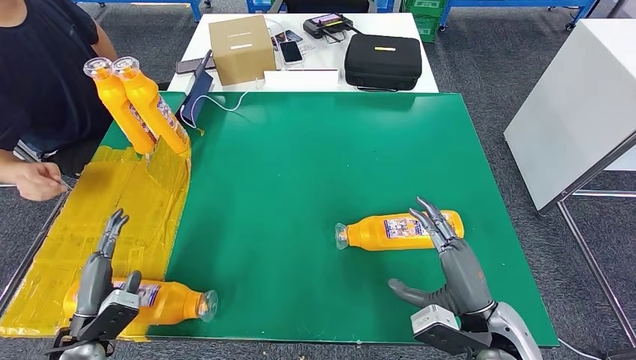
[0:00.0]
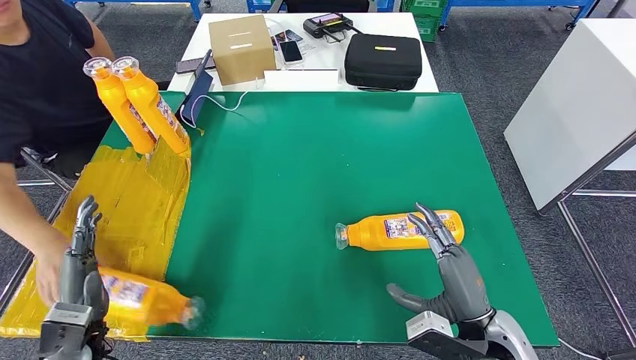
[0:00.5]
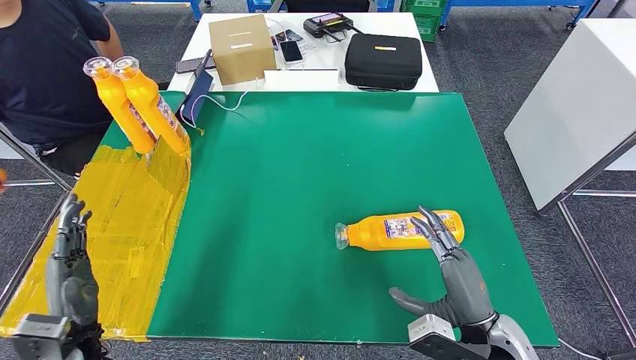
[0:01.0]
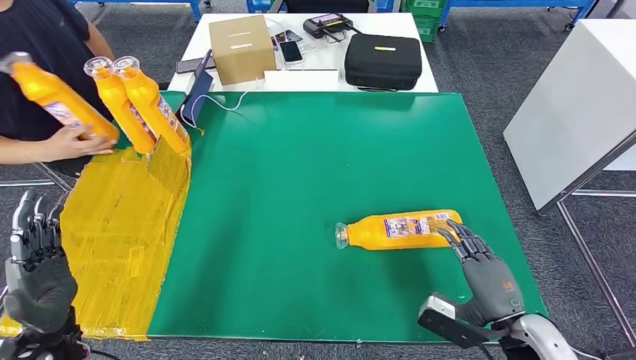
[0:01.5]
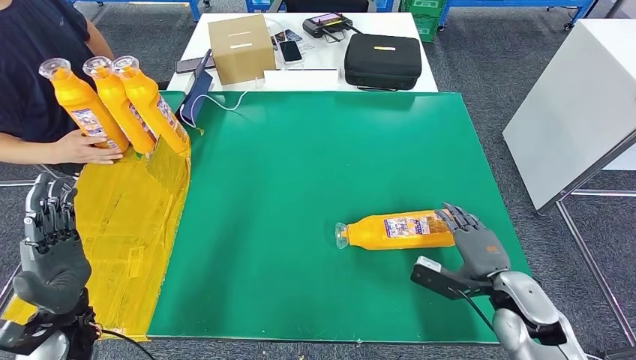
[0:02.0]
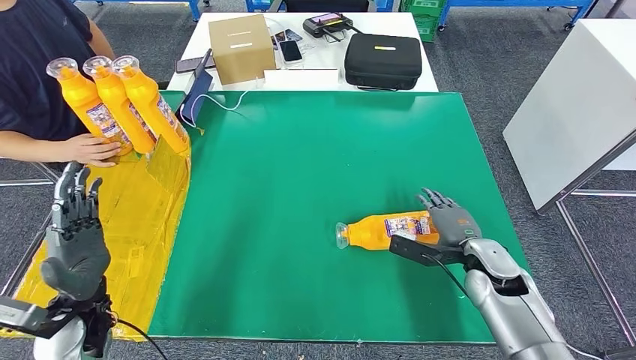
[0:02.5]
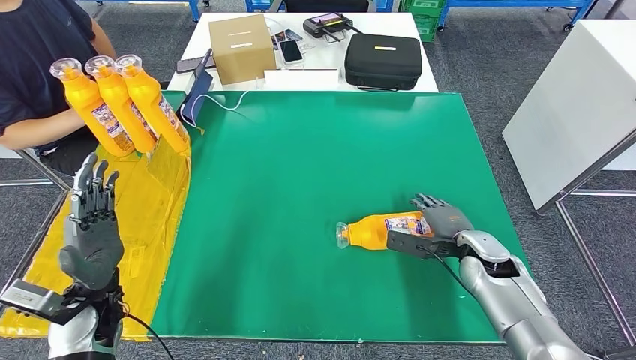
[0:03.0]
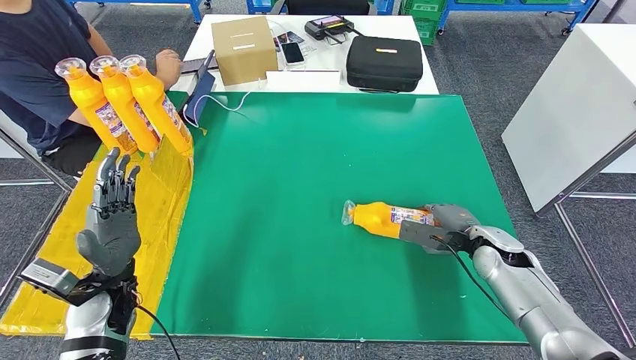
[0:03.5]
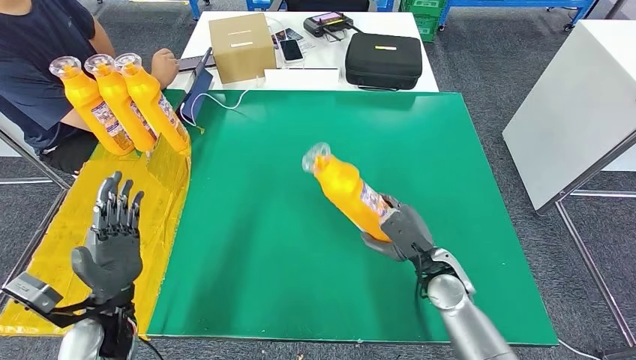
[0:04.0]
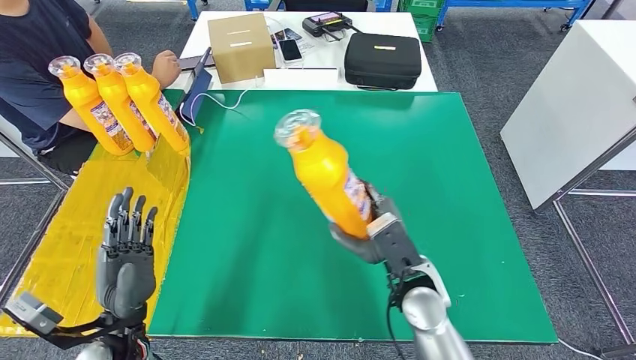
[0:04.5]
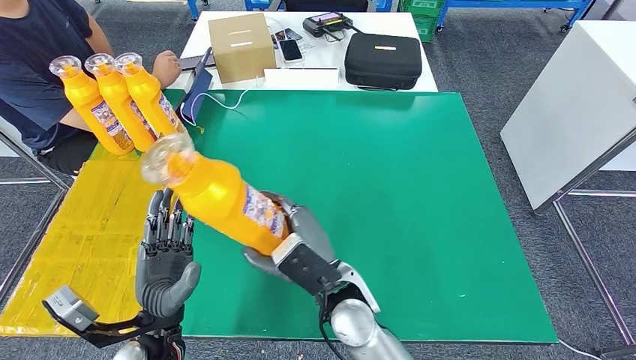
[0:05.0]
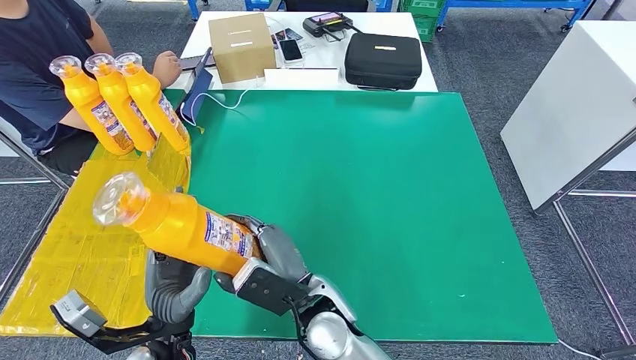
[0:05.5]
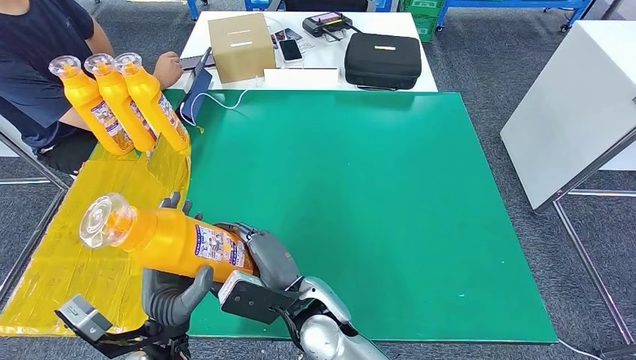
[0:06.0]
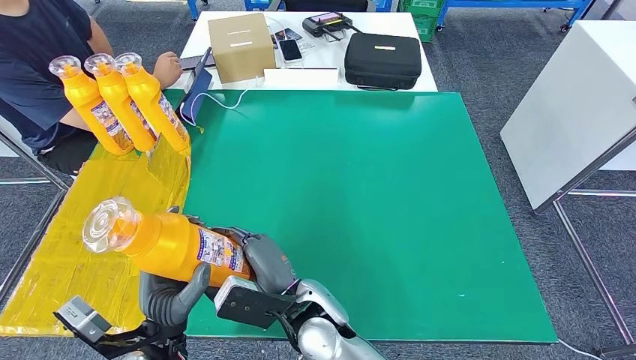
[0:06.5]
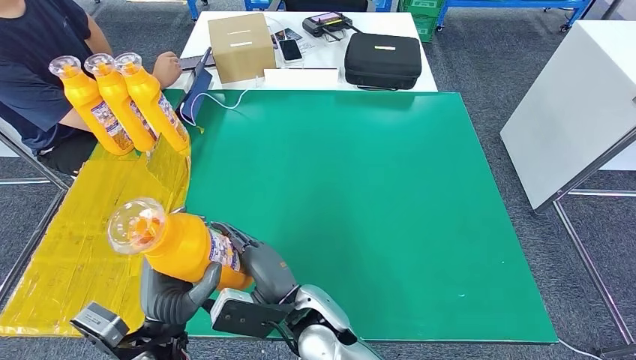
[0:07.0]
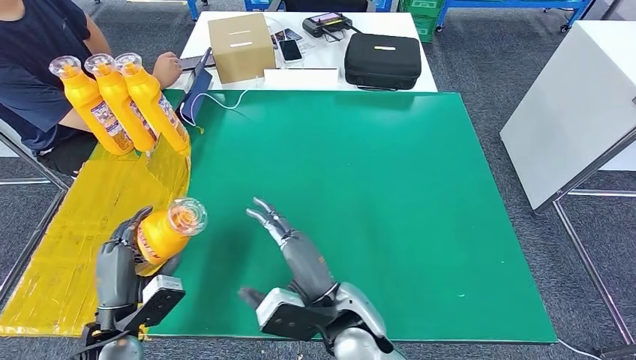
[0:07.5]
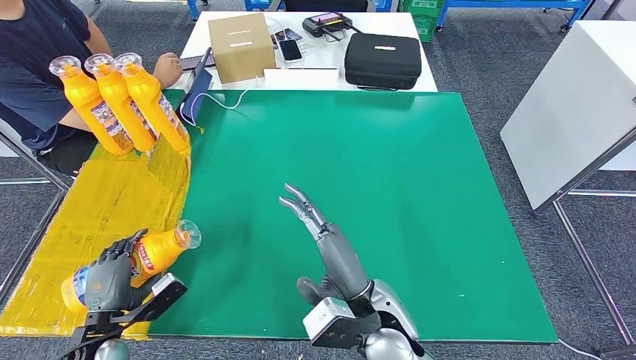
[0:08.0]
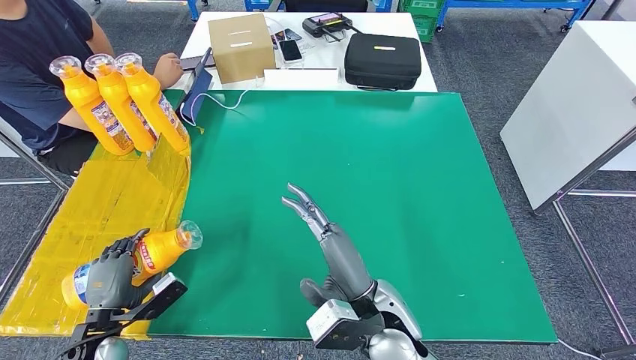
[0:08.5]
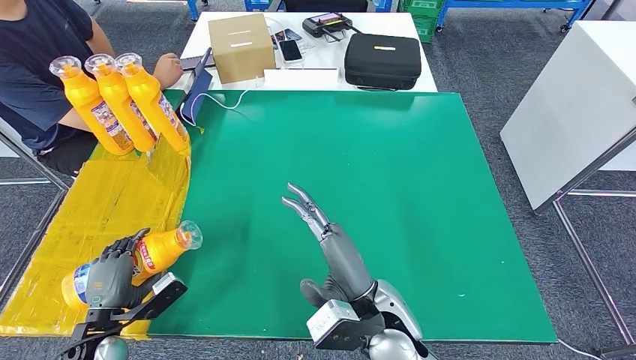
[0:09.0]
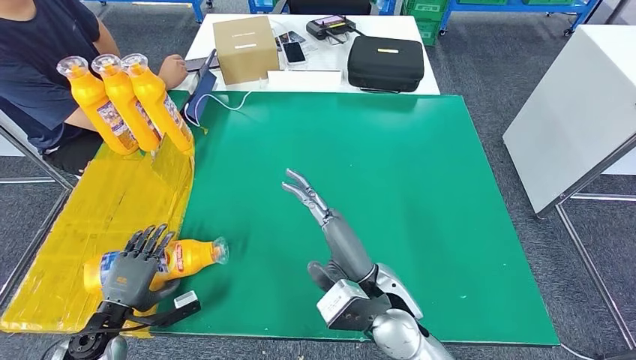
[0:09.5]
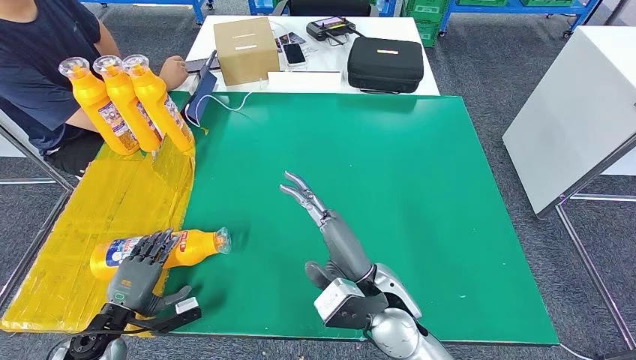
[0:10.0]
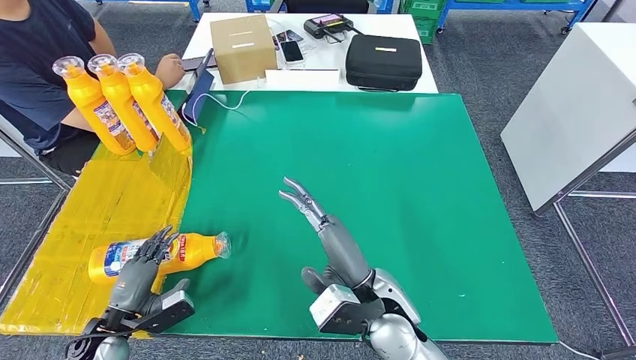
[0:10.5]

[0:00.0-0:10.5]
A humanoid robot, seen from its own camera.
Step, 0:03.0 to 0:04.0: Pick up the bottle from the table.
Step, 0:05.0 to 0:10.5: Flip the bottle to face forward.
0:06.5 to 0:08.5: The right hand travels to the right by some 10 cm. The left hand travels to the left and downward by about 20 cm.
